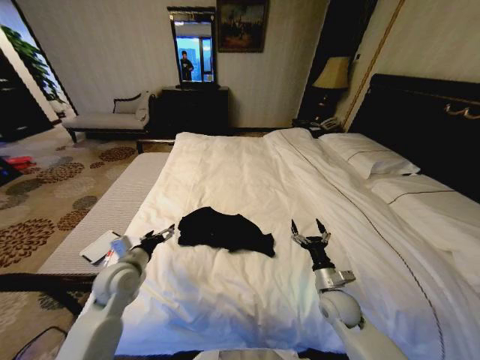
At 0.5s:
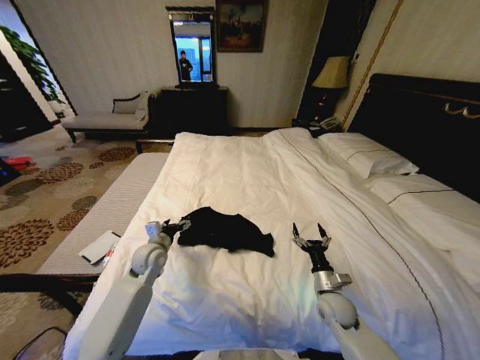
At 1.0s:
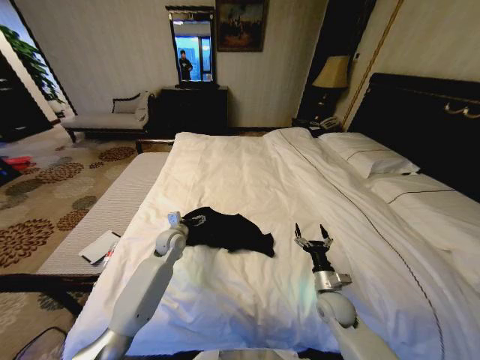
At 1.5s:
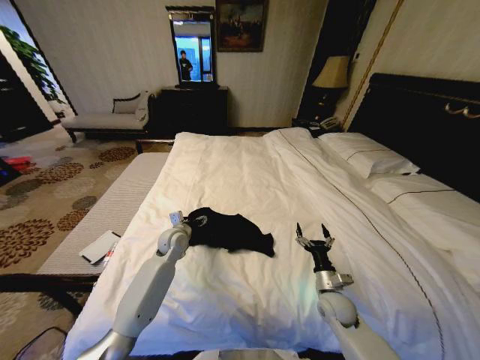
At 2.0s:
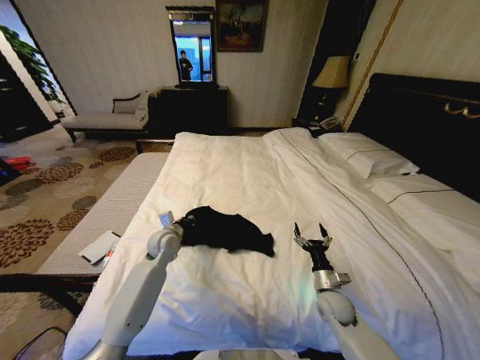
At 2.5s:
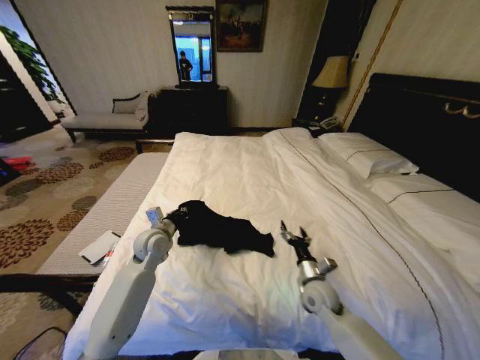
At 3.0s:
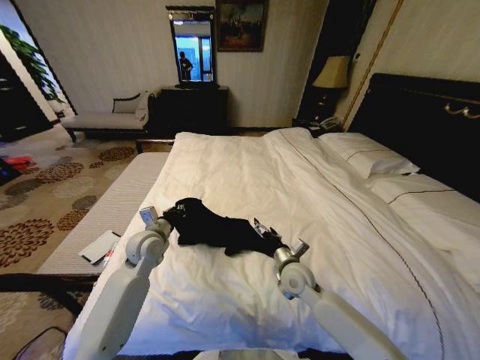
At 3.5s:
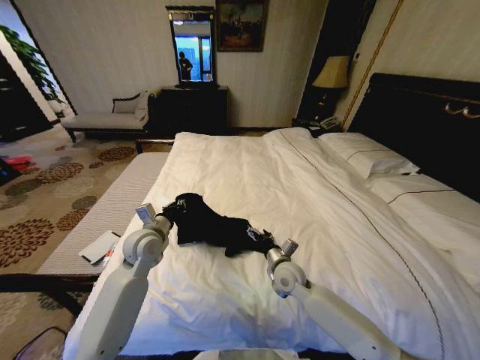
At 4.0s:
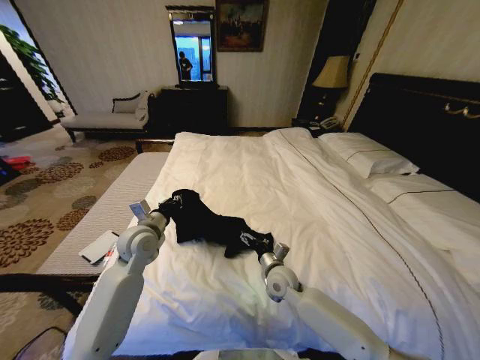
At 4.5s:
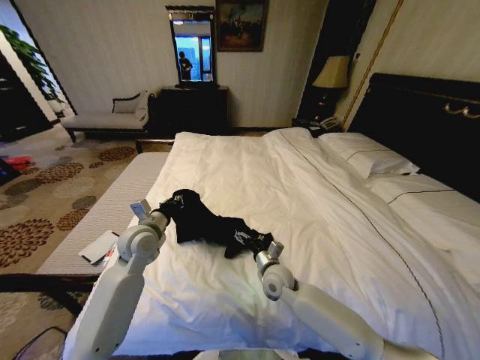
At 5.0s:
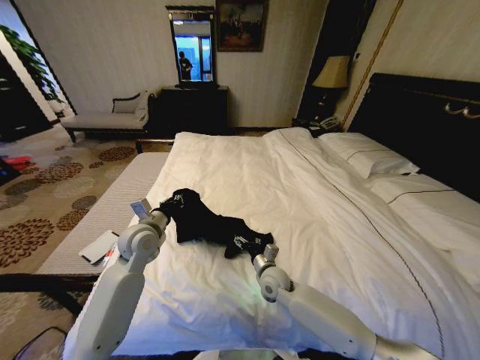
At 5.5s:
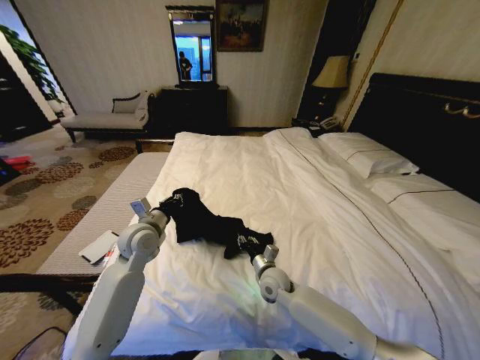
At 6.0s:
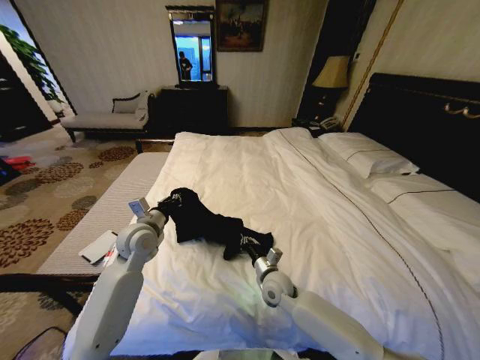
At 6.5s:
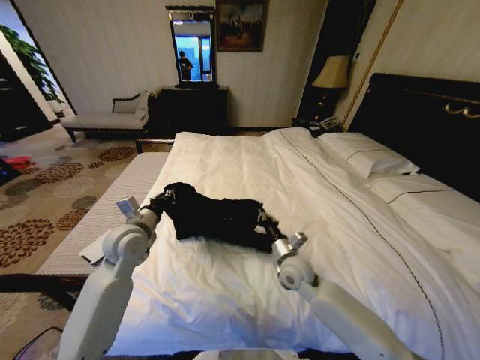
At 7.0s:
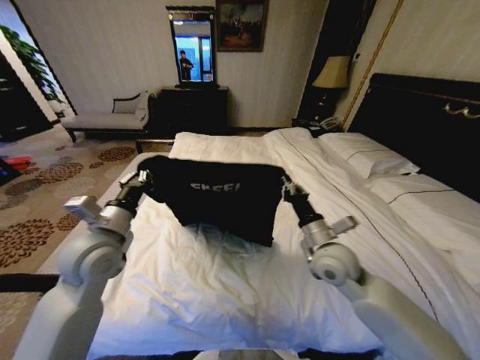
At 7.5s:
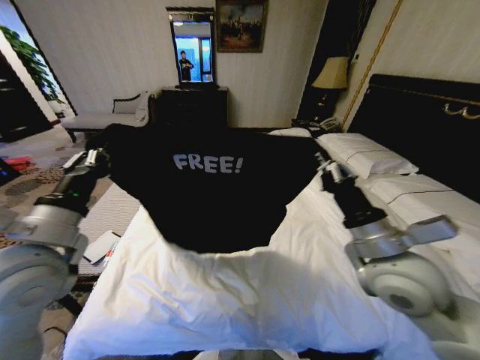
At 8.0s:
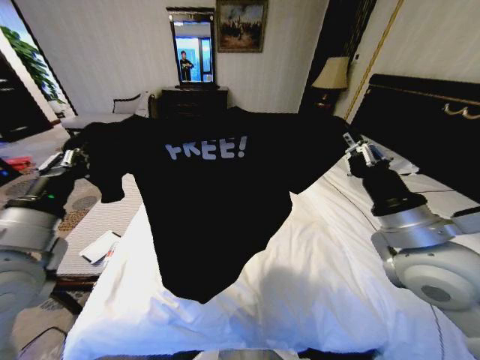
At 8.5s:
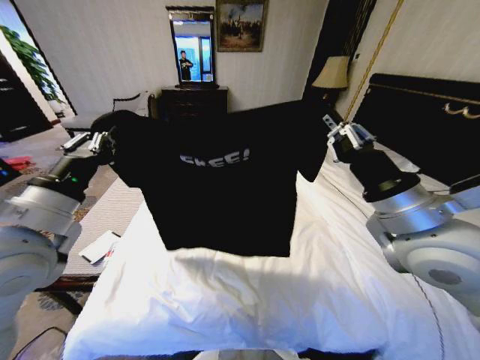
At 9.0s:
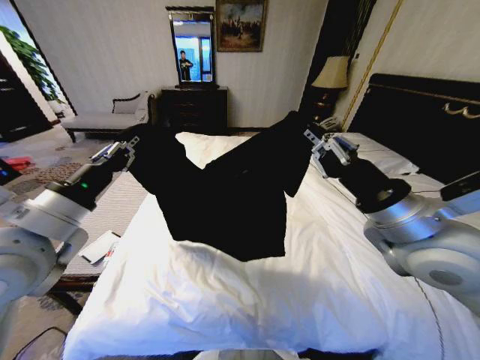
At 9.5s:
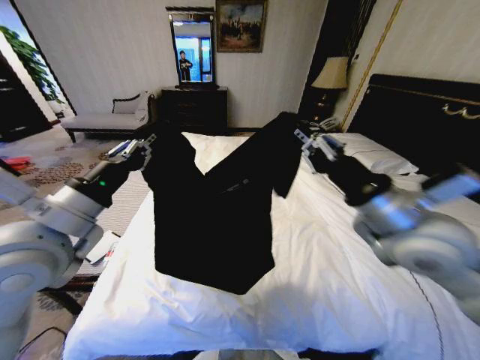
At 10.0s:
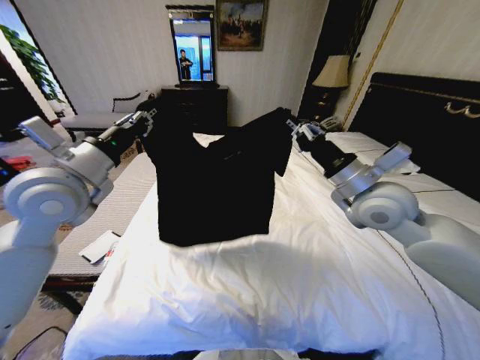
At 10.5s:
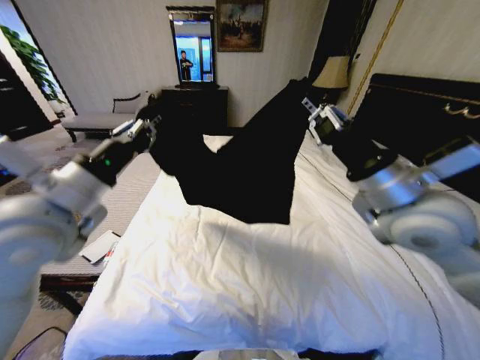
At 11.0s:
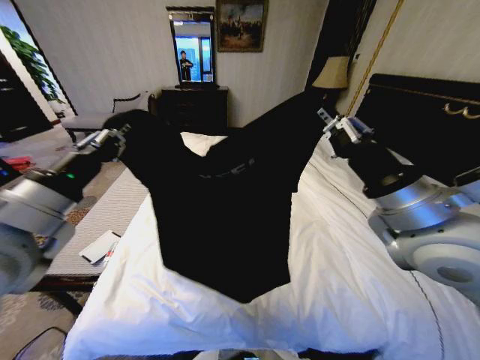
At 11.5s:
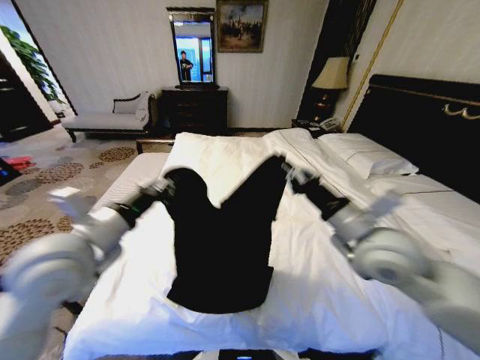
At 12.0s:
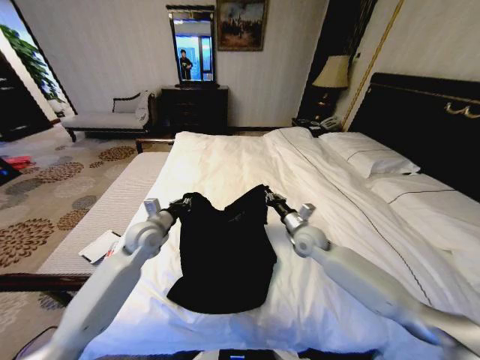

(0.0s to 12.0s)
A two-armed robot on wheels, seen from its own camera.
Task of the whole recording: Fold the clothes on the bed.
0.0s - 2.0s: The left gripper is displaced forward and to the right by some 15 cm, and closes.
2.0s - 4.0s: The left gripper heads upward and backward, covering about 10 cm. The right gripper shifts roughly 15 cm to the left.
4.0s - 6.0s: The right gripper closes.
6.0s - 8.0s: The left gripper shifts approximately 25 cm backward, upward and to the left. The right gripper shifts some 35 cm upward and to the right.
8.0s - 10.0s: The right gripper is displaced forward by roughly 10 cm. Meanwhile the left gripper moves forward and upward, roughly 15 cm.
10.0s - 12.0s: Both grippers move downward, about 25 cm.

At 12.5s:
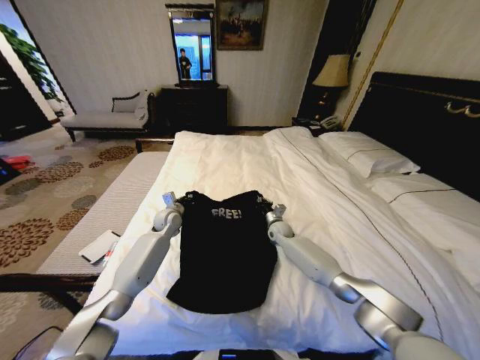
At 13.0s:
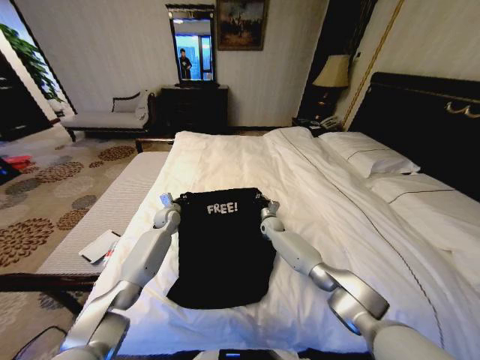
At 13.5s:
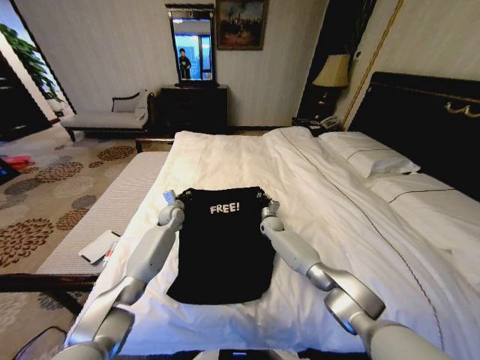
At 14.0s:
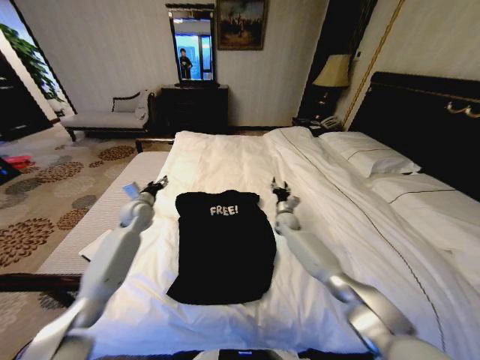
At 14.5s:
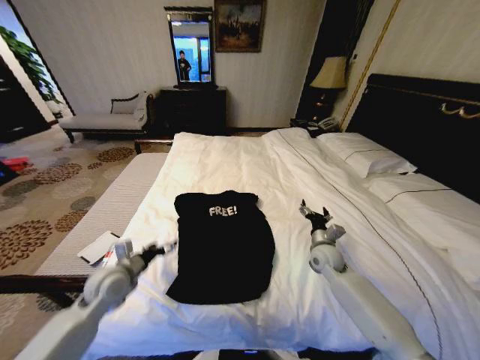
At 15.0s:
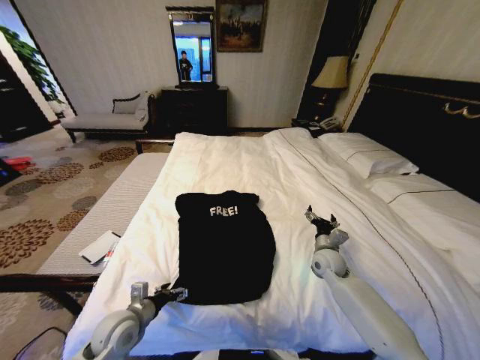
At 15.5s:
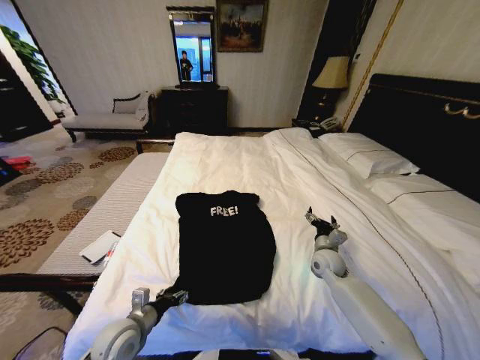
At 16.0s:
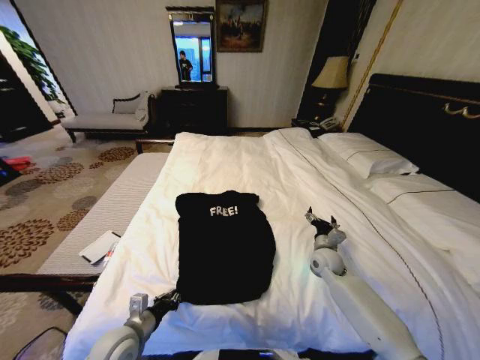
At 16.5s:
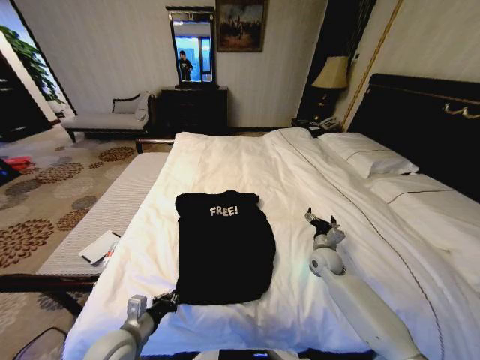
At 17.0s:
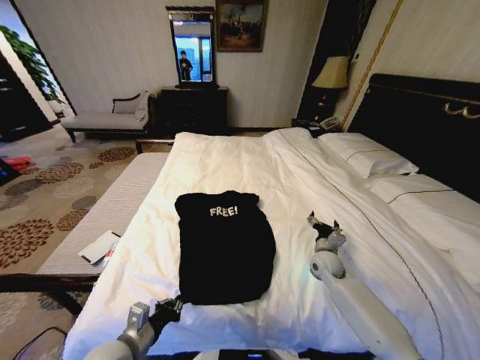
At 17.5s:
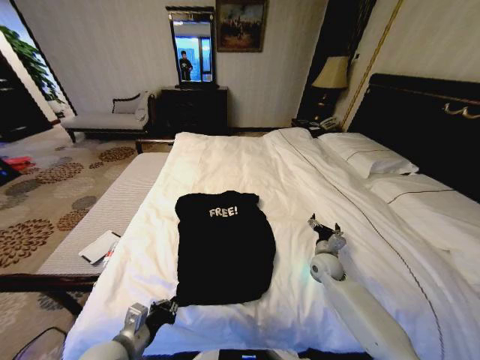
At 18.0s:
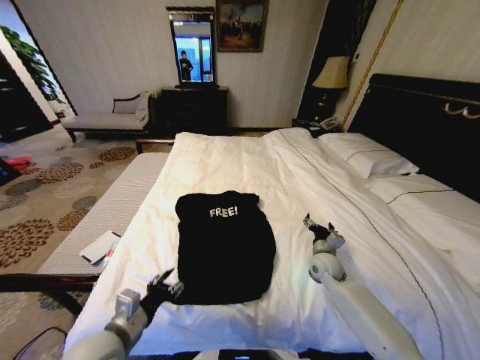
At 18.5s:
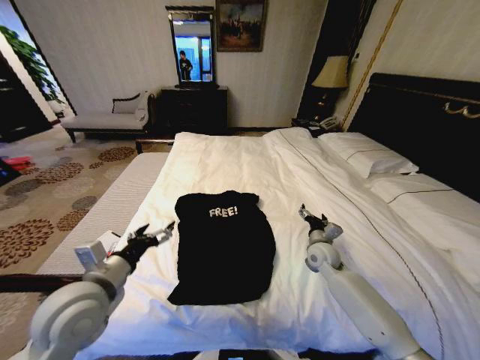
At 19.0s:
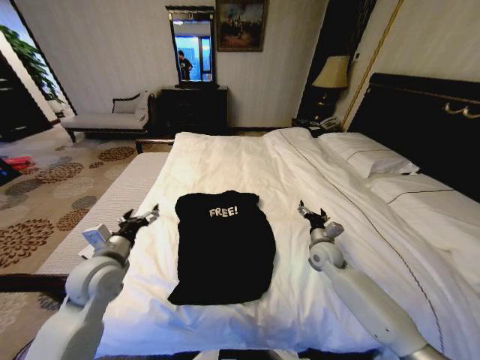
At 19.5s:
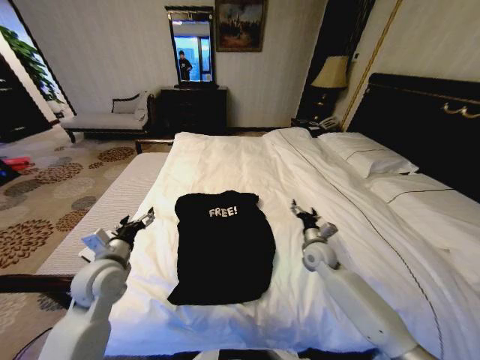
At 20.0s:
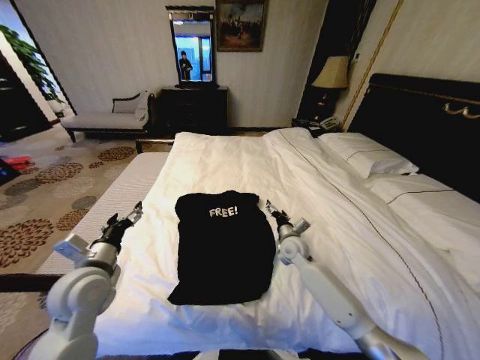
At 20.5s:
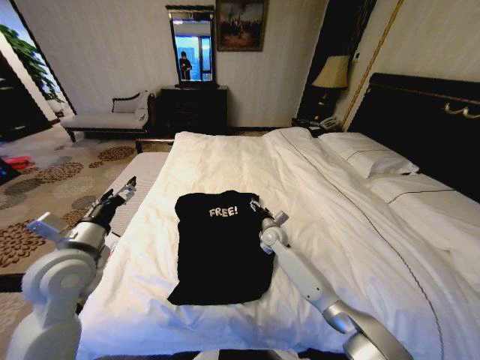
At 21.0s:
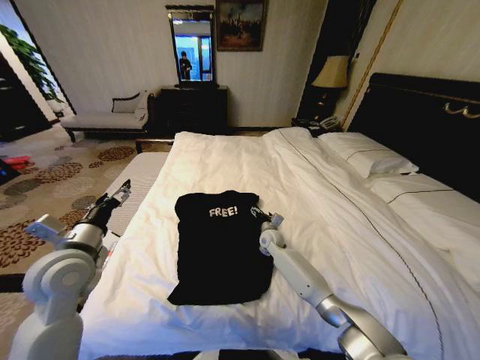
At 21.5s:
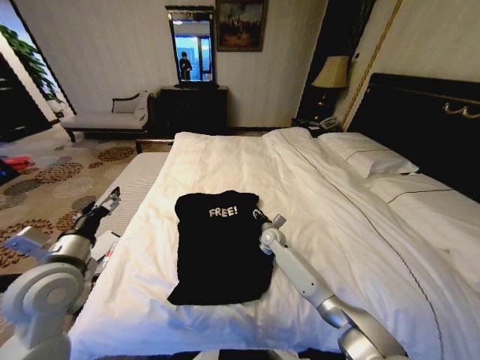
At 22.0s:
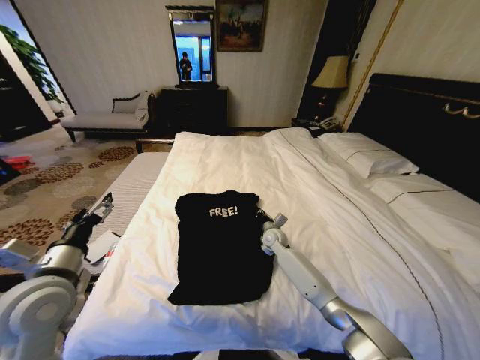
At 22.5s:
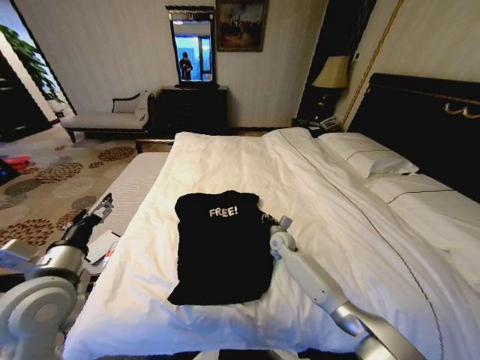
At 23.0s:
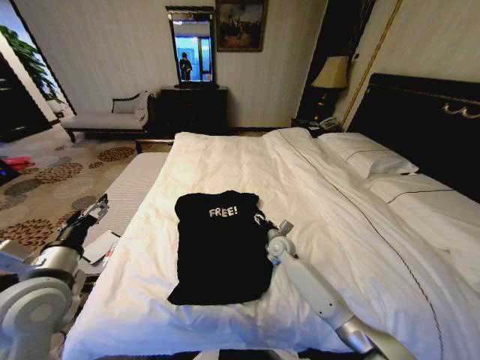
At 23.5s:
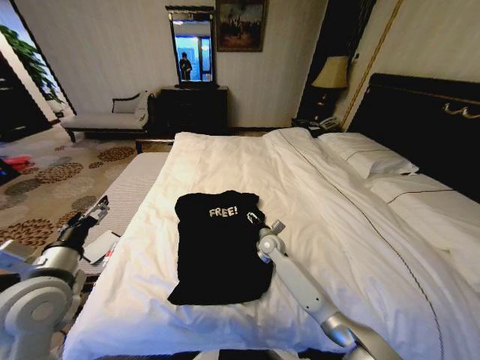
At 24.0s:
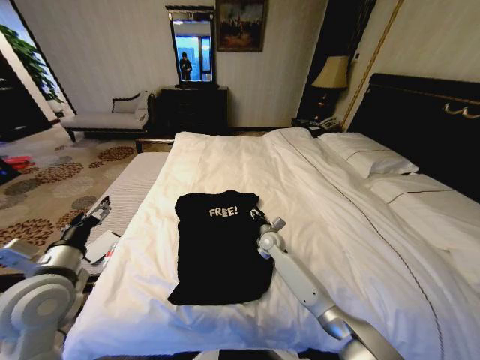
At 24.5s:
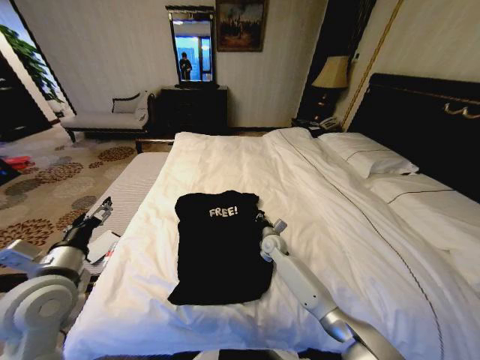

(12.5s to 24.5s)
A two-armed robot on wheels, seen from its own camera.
Task of the whole recording: Fold the clothes on the bed.
12.5s - 14.5s: The right gripper travels backward and to the right by roughly 15 cm, and opens its fingers, while the left gripper moves backward and to the left, roughly 25 cm, and opens its fingers.
14.5s - 16.5s: The left gripper heads backward, covering some 15 cm, and closes up.
16.5s - 18.5s: The left gripper heads upward, covering some 15 cm, and opens up.
18.5s - 20.5s: The right gripper is displaced to the left and forward by about 15 cm. The left gripper is displaced forward by roughly 5 cm, and moves approximately 5 cm downward and comes back.
20.5s - 22.5s: The left gripper shifts by approximately 5 cm, while the right gripper closes.
22.5s - 24.5s: The right gripper opens and closes again.

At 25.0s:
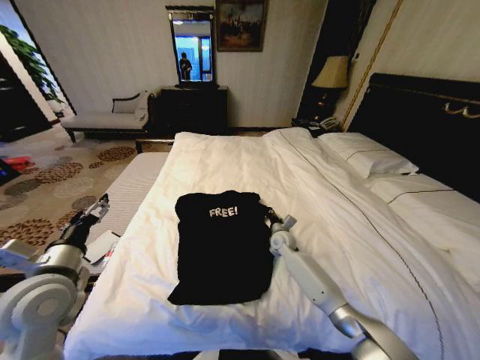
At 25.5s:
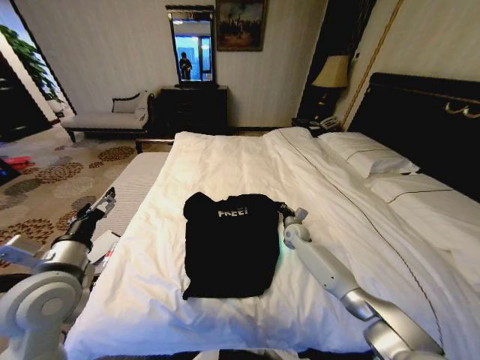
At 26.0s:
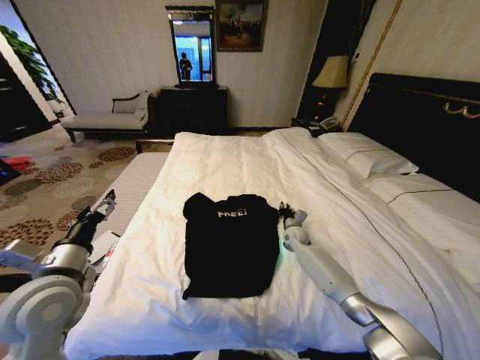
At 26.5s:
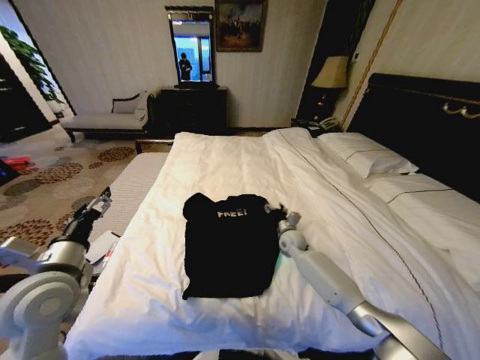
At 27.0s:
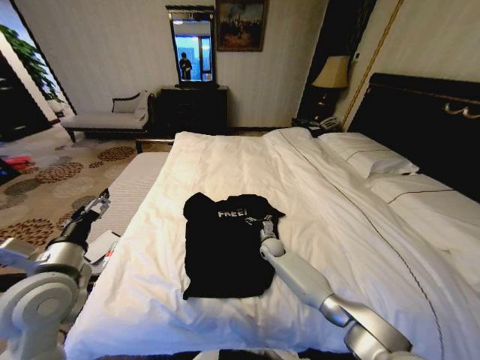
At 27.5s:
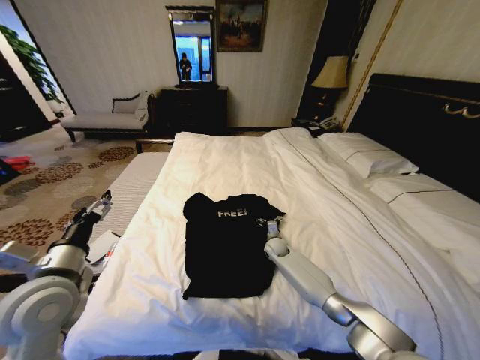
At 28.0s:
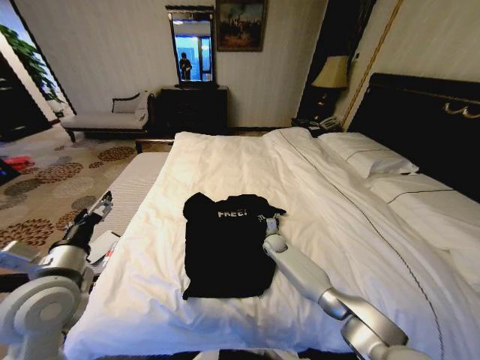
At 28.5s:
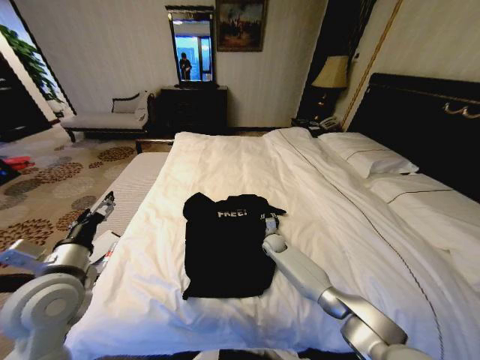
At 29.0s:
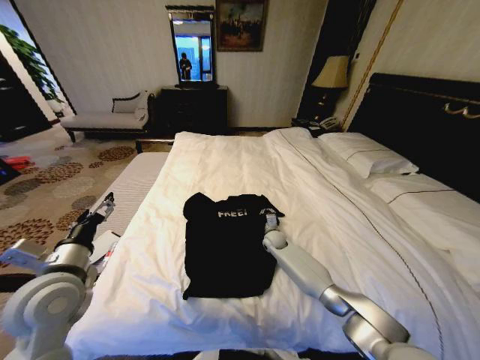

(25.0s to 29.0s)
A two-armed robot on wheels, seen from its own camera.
Task of the whole recording: Fold the clothes on the bed.
25.0s - 27.0s: The right gripper goes approximately 5 cm downward, moves approximately 5 cm to the right and comes back, and opens its fingers.
27.0s - 29.0s: The right gripper closes.
